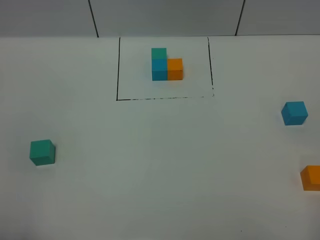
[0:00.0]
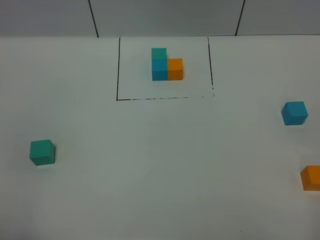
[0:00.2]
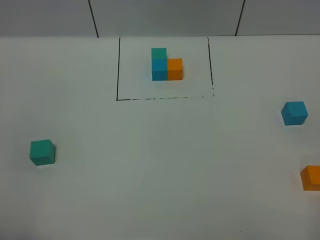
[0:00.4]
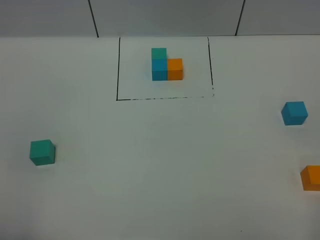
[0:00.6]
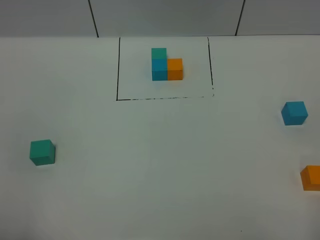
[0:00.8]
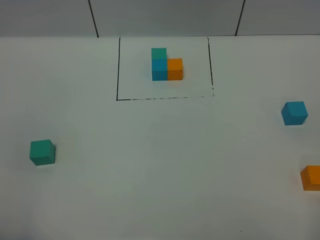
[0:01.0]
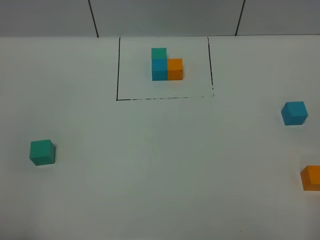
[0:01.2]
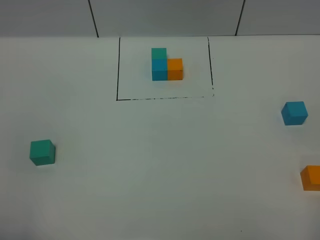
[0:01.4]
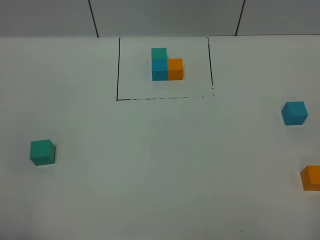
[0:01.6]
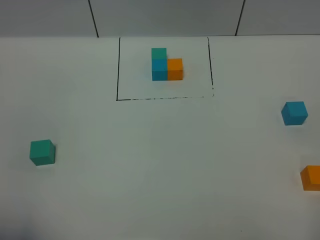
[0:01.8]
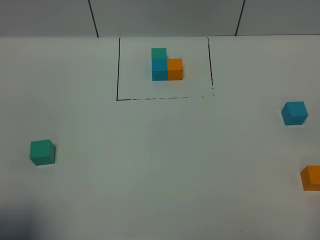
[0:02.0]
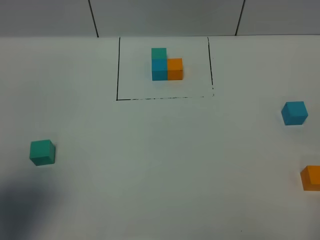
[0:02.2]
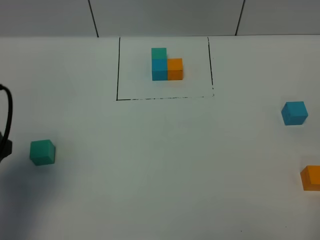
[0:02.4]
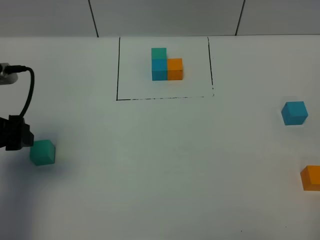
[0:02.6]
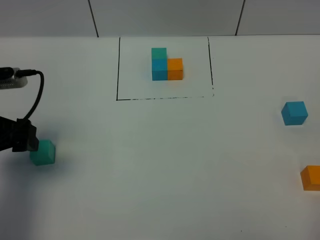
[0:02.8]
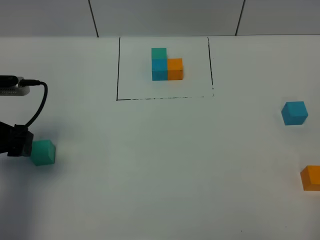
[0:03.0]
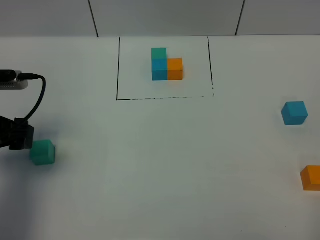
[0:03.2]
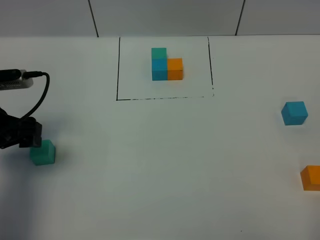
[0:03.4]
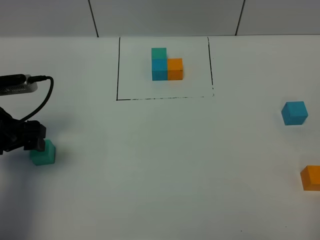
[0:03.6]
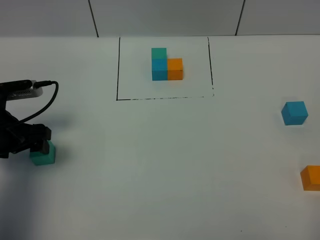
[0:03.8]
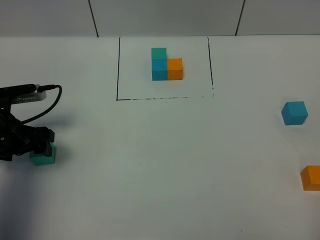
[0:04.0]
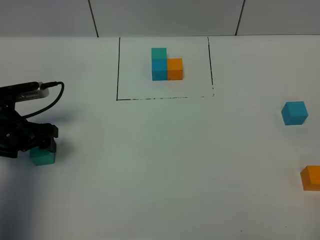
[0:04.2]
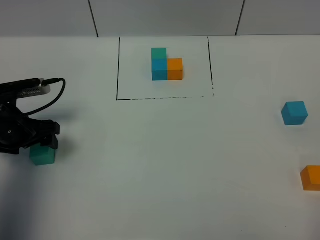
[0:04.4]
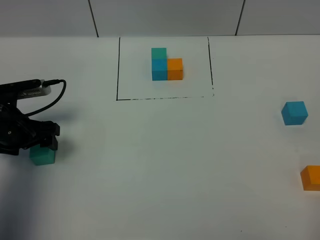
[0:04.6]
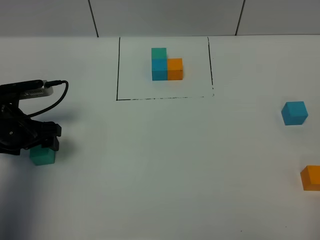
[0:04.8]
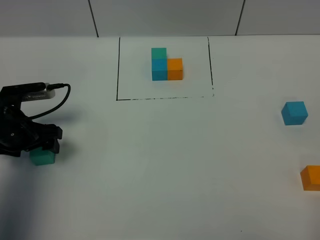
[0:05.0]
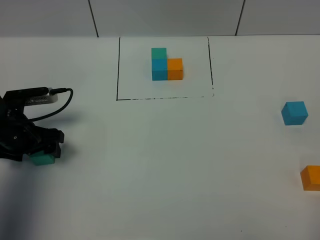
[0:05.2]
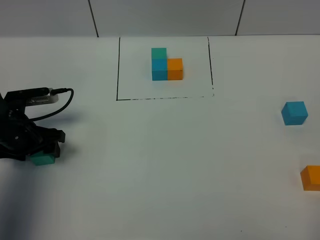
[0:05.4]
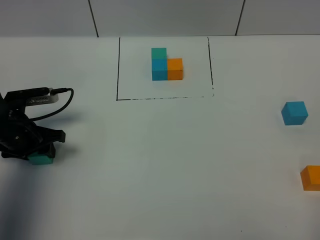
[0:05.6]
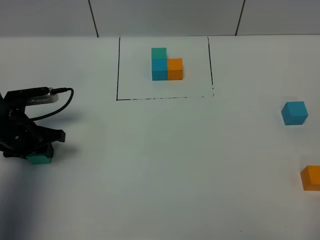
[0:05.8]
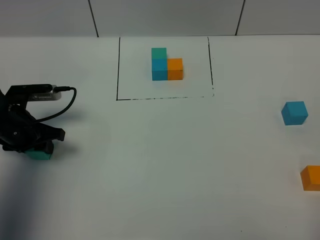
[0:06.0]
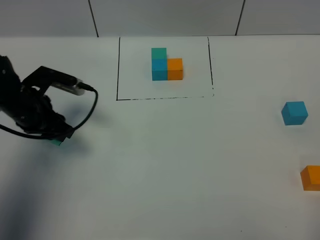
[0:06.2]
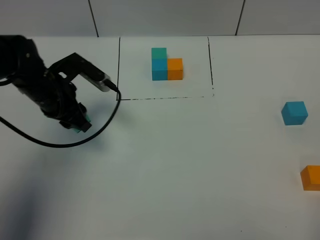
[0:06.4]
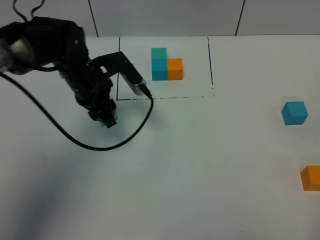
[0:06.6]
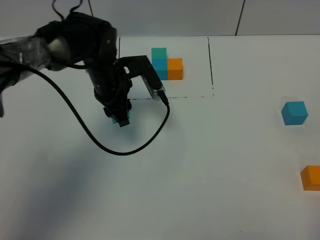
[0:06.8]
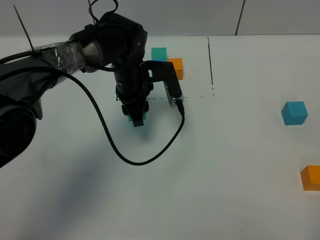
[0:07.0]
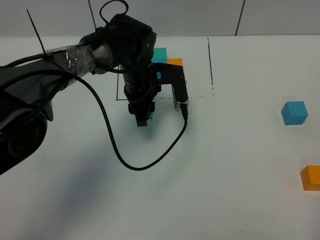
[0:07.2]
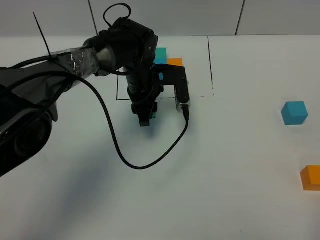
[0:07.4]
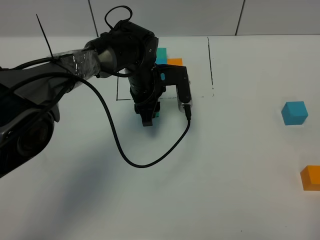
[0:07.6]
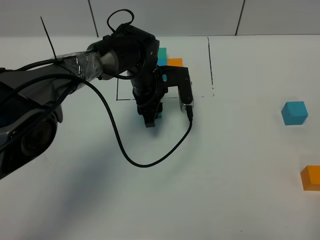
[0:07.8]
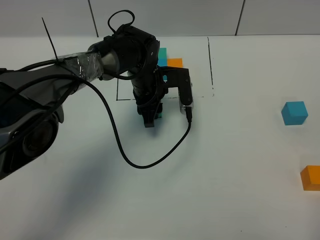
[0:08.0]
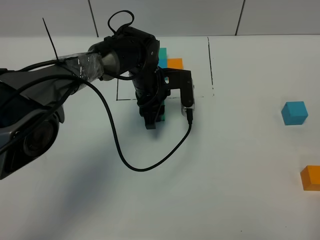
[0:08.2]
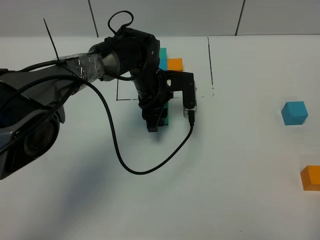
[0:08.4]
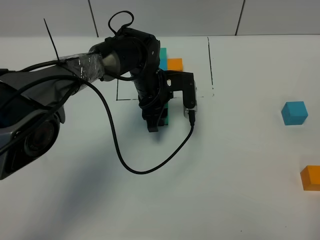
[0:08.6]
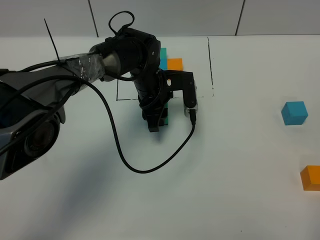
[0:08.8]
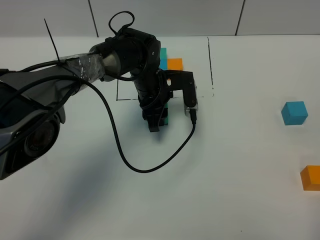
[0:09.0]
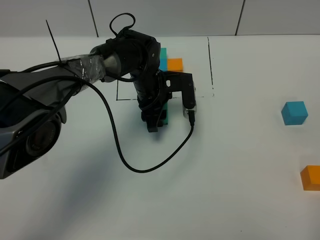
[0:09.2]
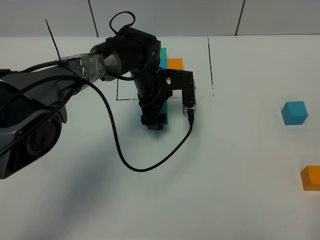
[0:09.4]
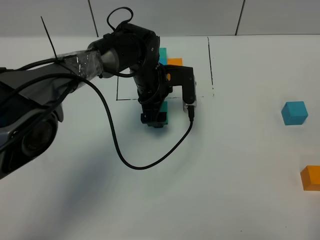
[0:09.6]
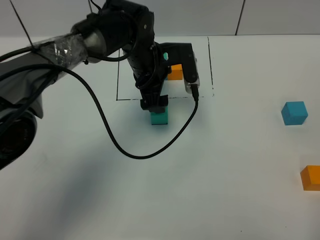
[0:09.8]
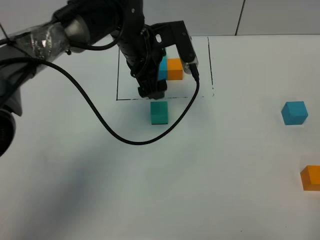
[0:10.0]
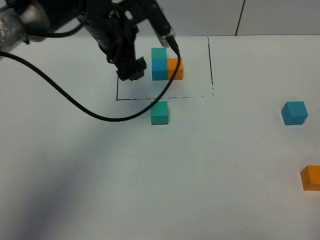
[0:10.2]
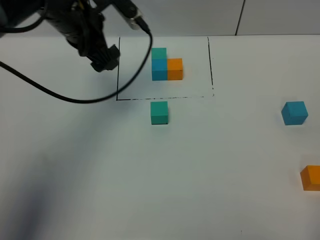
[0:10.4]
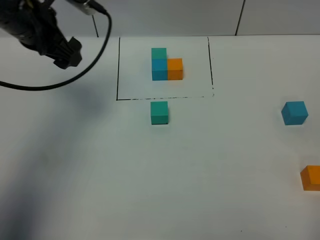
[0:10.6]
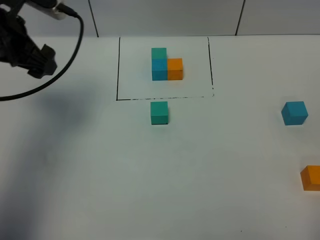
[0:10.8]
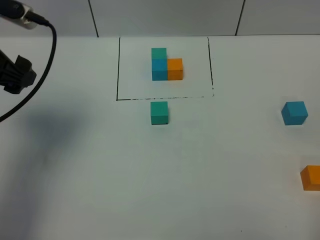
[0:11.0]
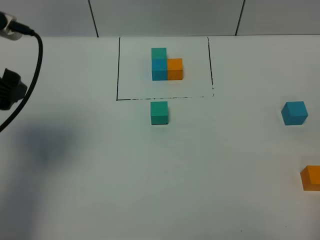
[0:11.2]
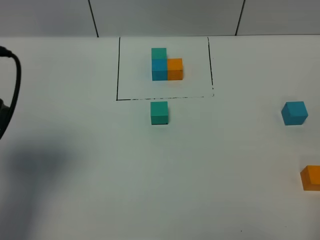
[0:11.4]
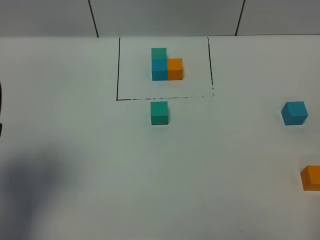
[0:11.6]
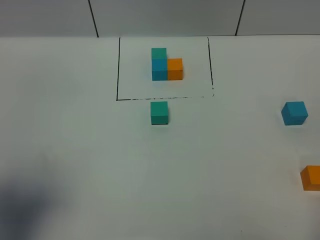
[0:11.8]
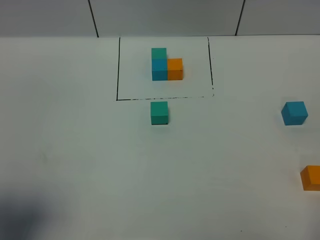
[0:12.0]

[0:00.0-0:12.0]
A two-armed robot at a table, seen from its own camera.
Task of the whole recording: According to the building block template in front, assemble the scattered blocks together.
Step, 0:00.0 to 0:09.2: Put the green build block in the center of the table.
0:00.0 to 0:01.6: Neither gripper changes place.
0:01.6 to 0:03.0: The left gripper travels forward by some 25 cm.
0:03.0 to 0:04.4: The left gripper travels downward and forward by some 10 cm.
0:04.4 to 0:06.0: The left gripper closes its fingers.
0:06.0 to 0:07.6: The left gripper heads to the right and forward, covering roughly 25 cm.
0:07.6 to 0:09.0: The grippers make only small movements.
0:09.0 to 0:10.4: The left gripper is displaced upward and to the left by about 20 cm, and opens up.
0:10.4 to 0:12.0: The left gripper moves backward and to the left, approximately 35 cm.

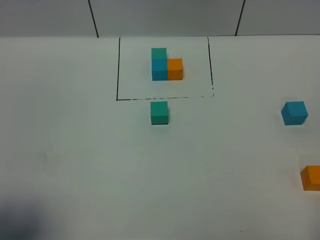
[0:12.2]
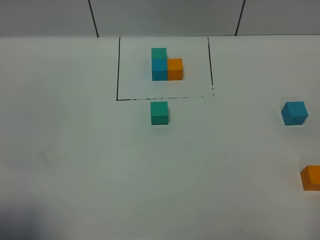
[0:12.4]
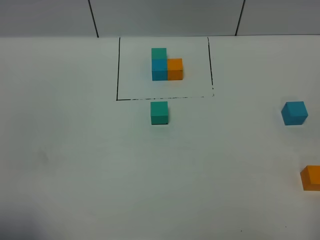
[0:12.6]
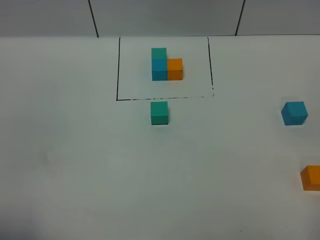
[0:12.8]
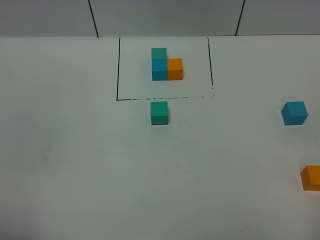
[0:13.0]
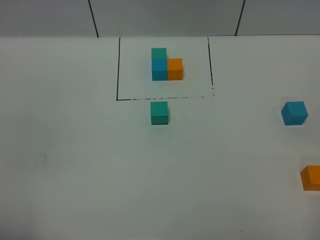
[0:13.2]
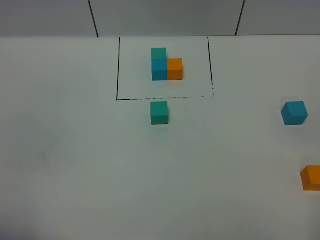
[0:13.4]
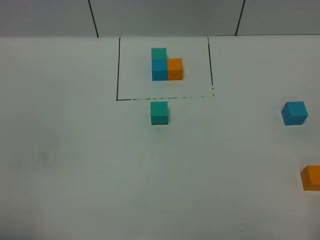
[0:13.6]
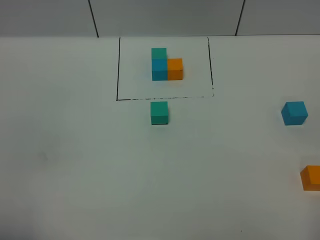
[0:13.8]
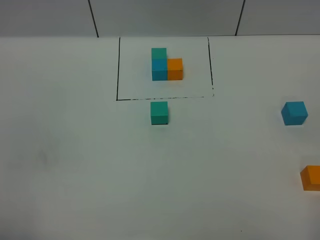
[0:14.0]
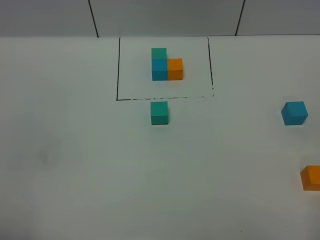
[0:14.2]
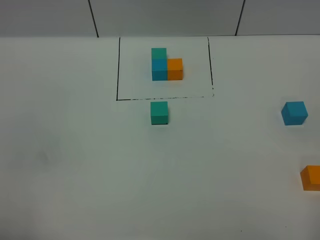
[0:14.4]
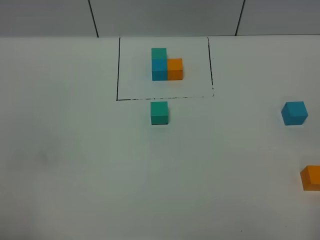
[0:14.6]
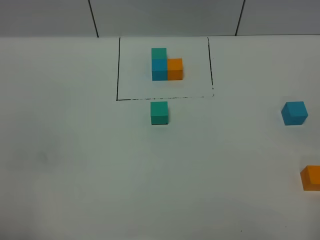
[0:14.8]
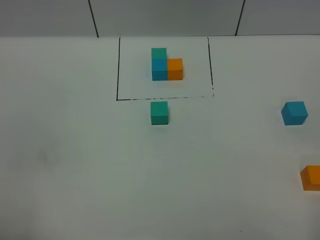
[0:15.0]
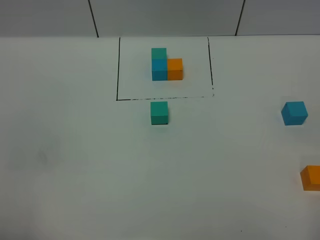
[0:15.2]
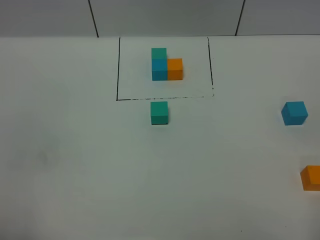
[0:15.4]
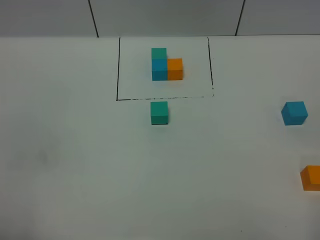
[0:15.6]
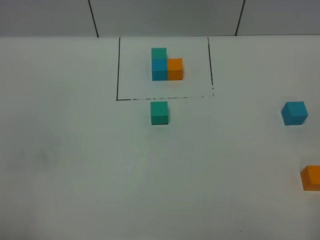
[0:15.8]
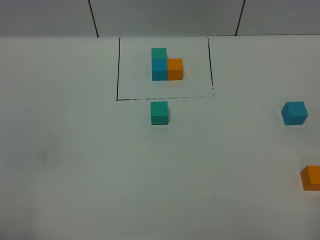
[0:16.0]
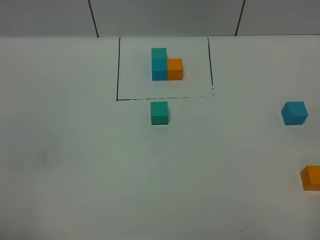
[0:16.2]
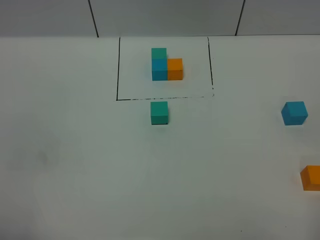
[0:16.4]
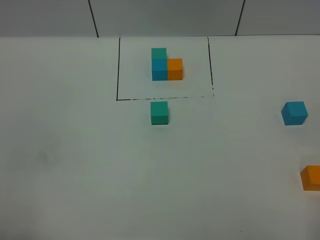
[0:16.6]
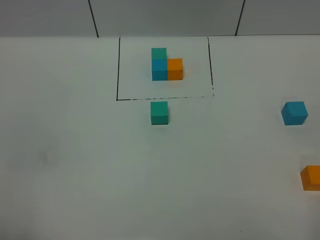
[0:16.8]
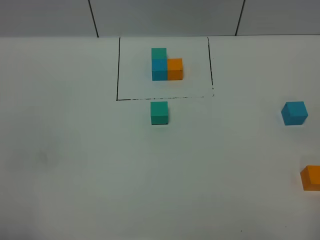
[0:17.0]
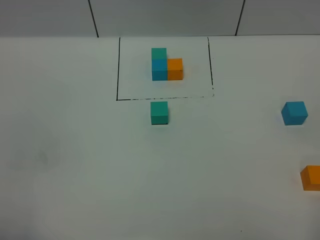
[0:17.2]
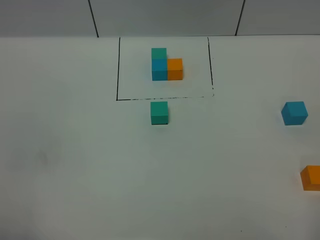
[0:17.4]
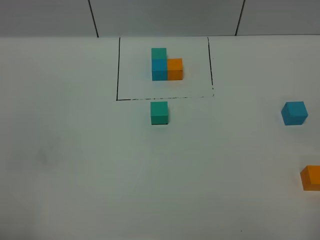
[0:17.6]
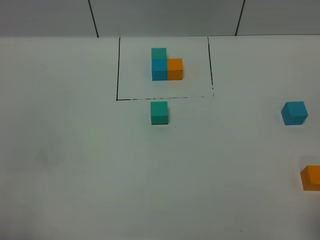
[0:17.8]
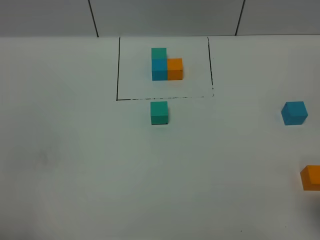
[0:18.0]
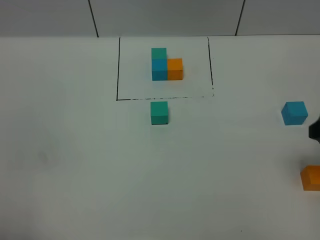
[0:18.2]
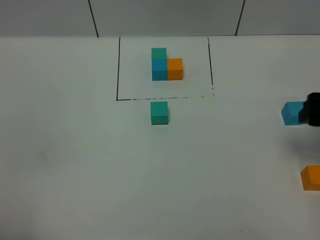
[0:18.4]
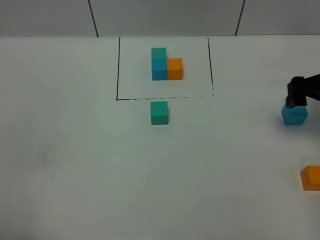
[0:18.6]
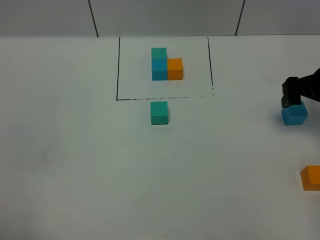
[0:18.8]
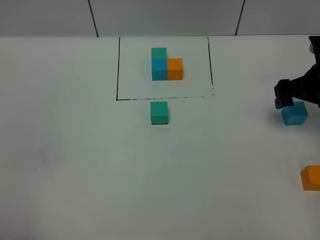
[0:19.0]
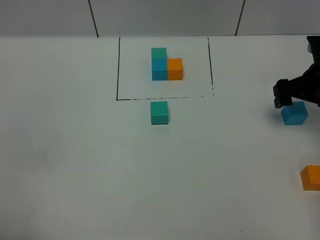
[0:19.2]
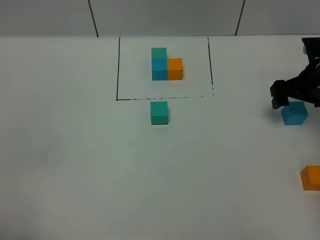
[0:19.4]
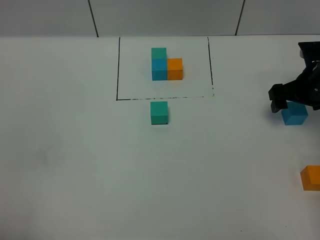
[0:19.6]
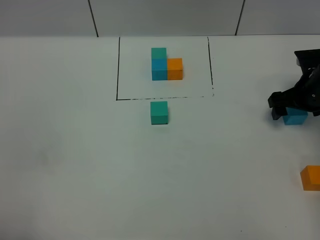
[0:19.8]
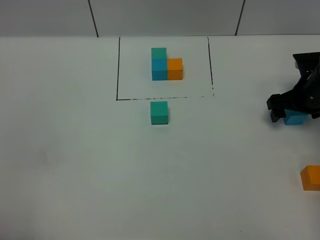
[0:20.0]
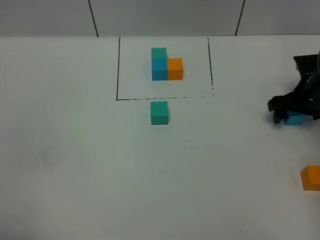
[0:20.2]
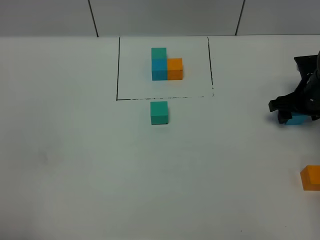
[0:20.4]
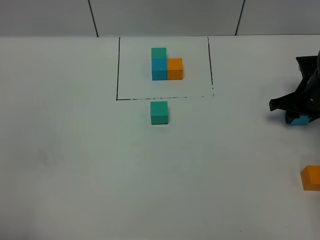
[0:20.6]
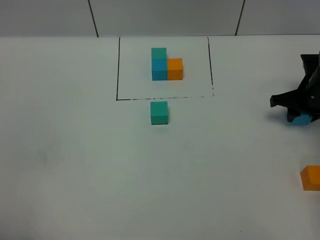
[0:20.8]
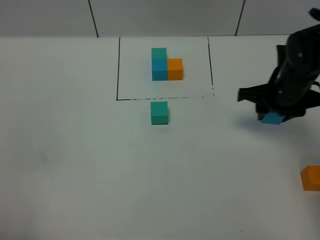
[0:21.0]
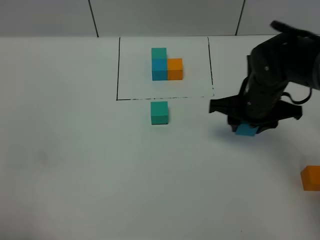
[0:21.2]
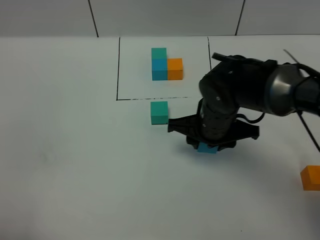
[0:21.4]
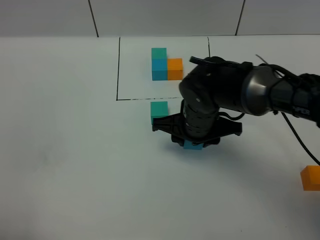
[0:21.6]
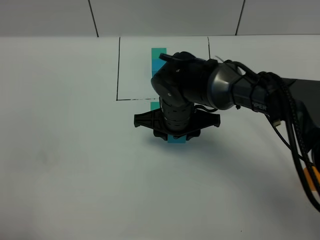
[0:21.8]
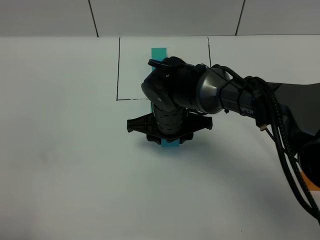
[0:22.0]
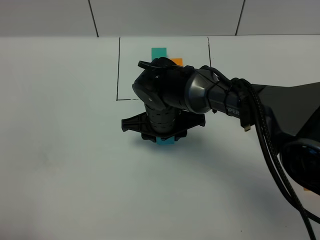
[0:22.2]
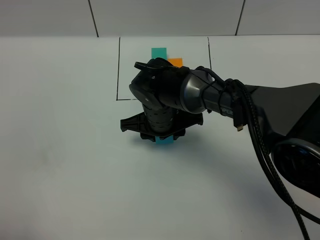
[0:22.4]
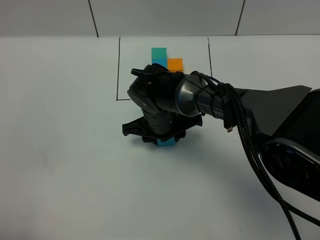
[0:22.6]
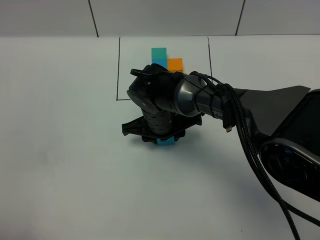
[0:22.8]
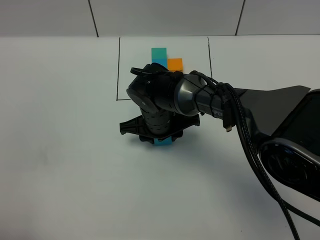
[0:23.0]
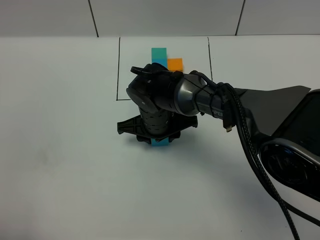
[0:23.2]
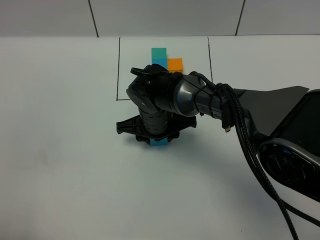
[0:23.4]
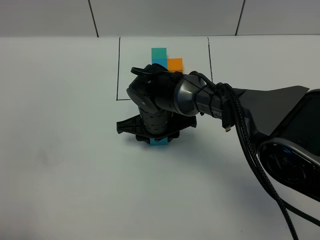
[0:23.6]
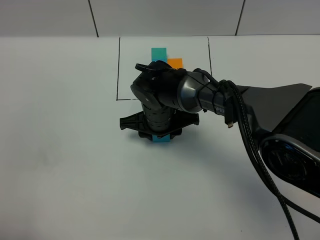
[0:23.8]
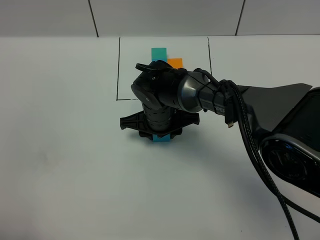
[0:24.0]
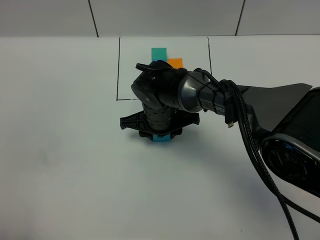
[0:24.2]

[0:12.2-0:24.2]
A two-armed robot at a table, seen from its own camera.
Task of the whole recording: According to the building block template in front, assemble the scattered blocks together.
0:12.2 to 0:13.8: The left gripper goes some 5 cm backward.
0:13.8 to 0:16.6: Both grippers stay put.
0:16.6 to 0:18.2: The right gripper shifts roughly 20 cm forward.
0:18.2 to 0:19.8: The right gripper travels forward and downward by roughly 20 cm.
0:19.8 to 0:21.2: The right gripper is displaced to the left and backward by some 15 cm, and closes up.
0:21.2 to 0:22.6: The right gripper moves to the left, some 15 cm.
0:22.6 to 0:24.2: Neither gripper changes place.
